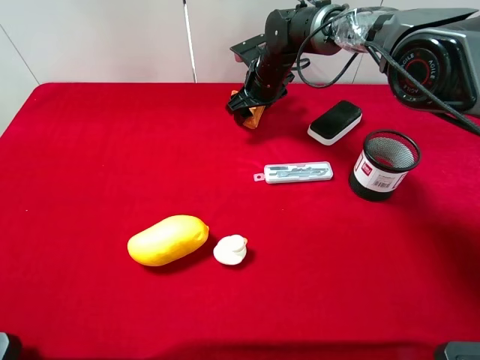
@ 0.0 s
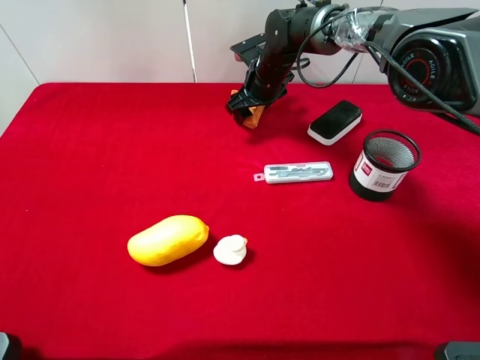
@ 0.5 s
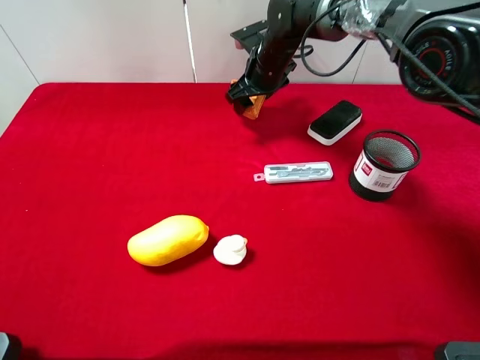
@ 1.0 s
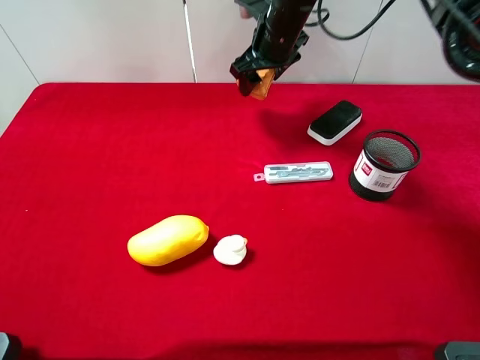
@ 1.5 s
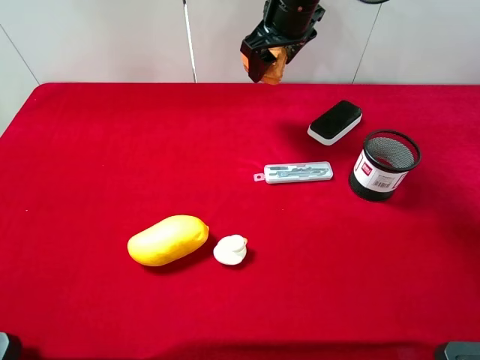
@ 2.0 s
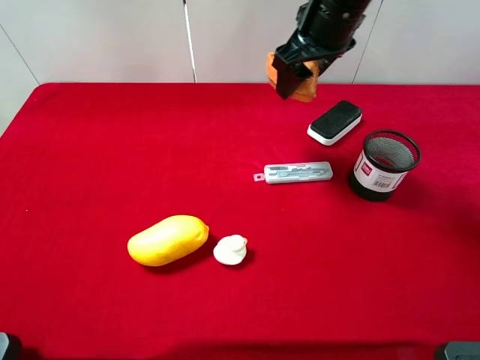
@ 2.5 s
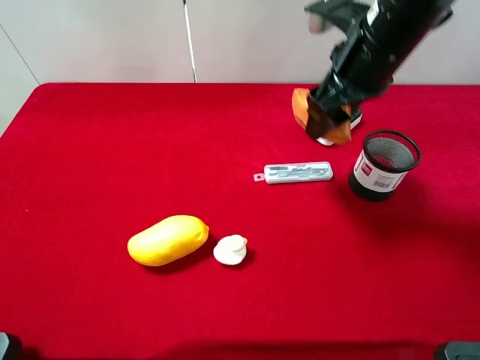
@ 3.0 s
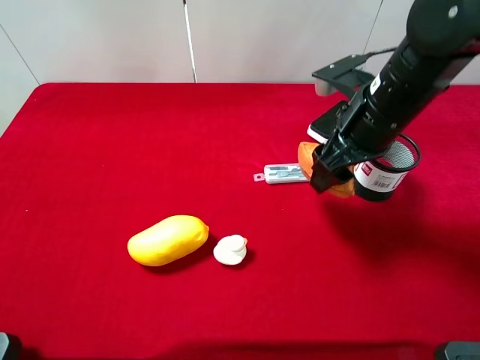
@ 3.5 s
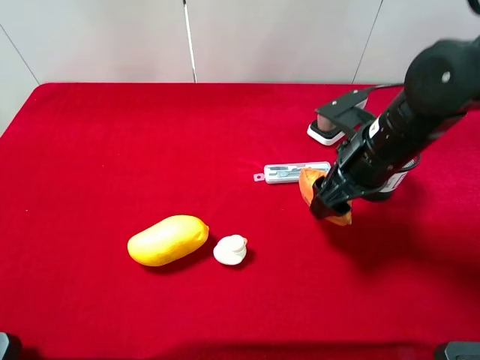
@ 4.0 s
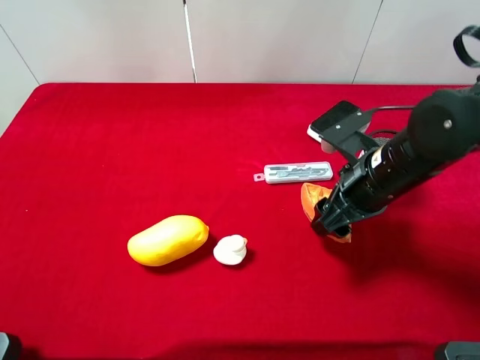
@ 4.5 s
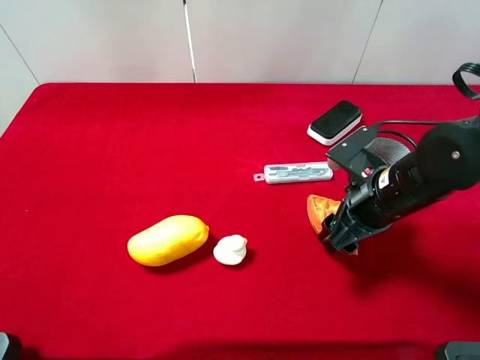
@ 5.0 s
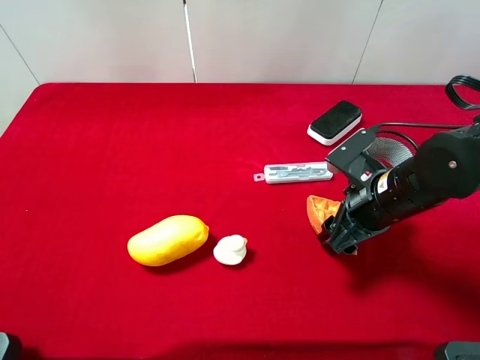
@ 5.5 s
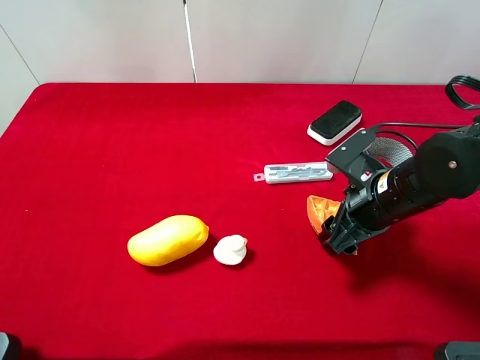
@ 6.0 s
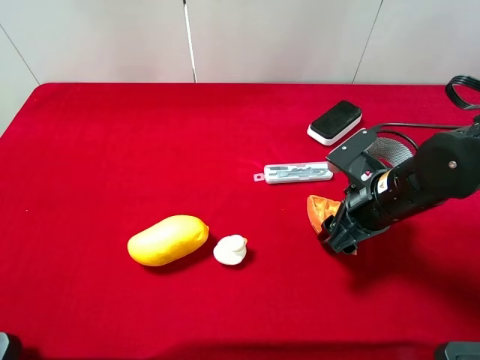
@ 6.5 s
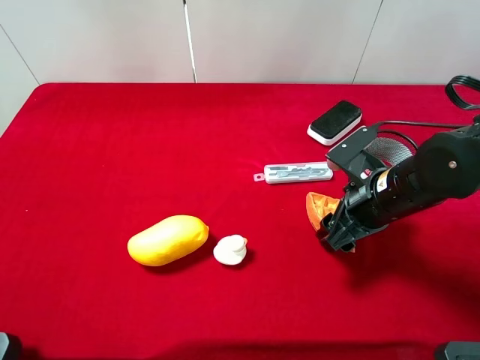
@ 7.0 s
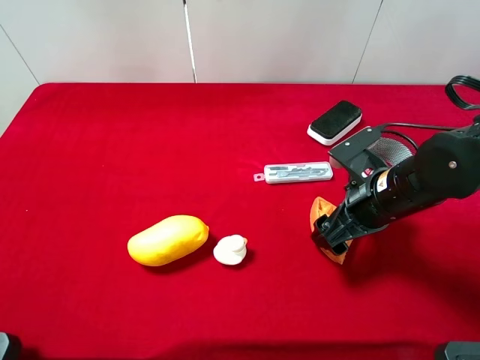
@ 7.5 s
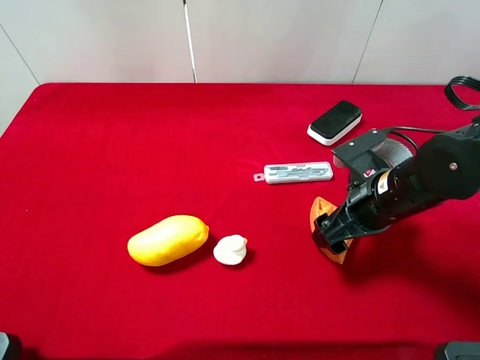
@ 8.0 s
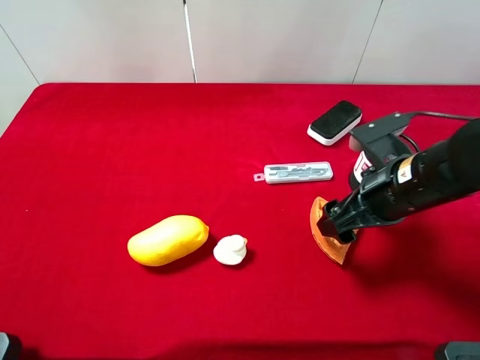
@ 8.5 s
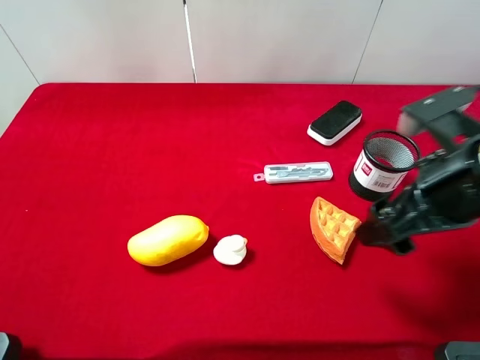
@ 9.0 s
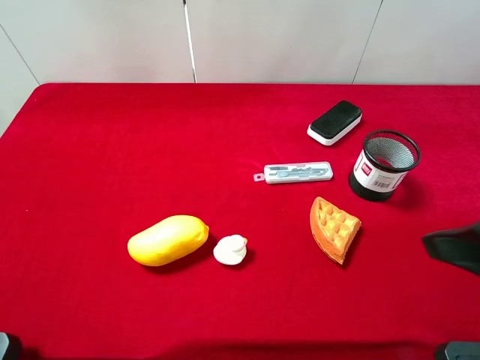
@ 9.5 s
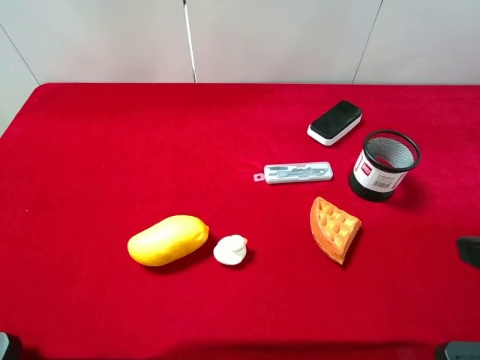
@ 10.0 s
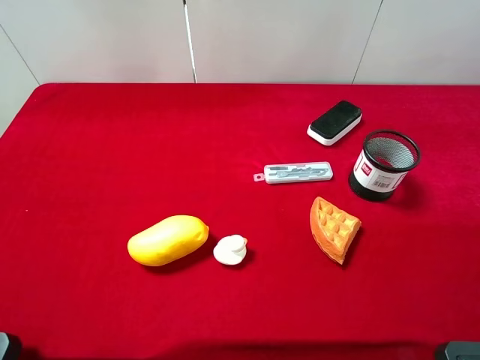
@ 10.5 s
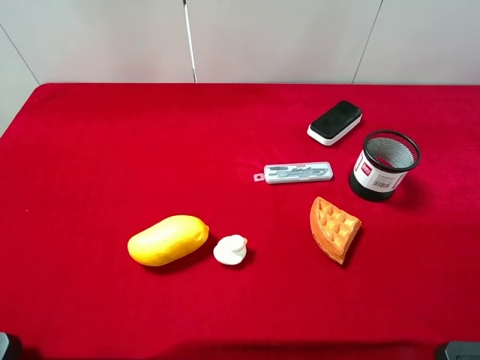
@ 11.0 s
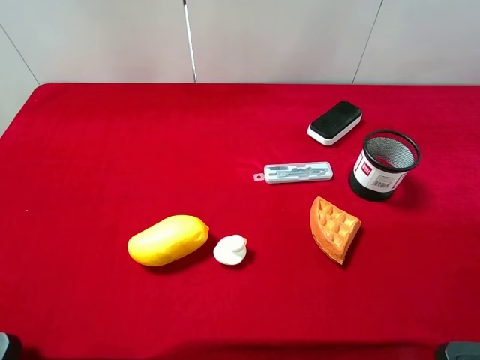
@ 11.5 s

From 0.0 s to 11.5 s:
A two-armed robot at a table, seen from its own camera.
Task of the whole recording: the gripper move the object.
Step, from 0.5 s to 9.0 s: Place the waffle on the table with the right gripper.
From 0.0 s to 2.0 s: The right gripper shifts approximately 15 cm upward.
From 2.0 s to 4.0 s: The right gripper travels backward, to the right and downward by roughly 25 cm.
From 4.0 s to 6.0 s: The right gripper ends up roughly 5 cm from where it was.
From 6.0 s to 7.5 s: The right gripper opens.
From 7.5 s to 9.5 s: The right gripper travels upward, backward and to the right by some 20 cm.
From 9.5 s to 11.5 s: The right gripper shifts about 10 cm backward.
